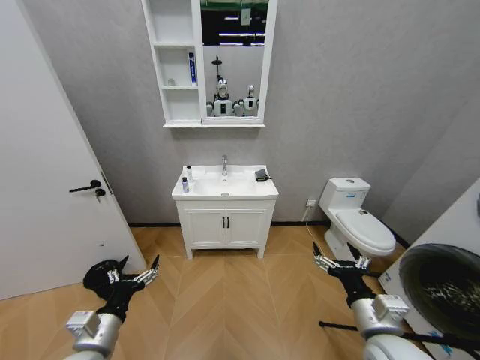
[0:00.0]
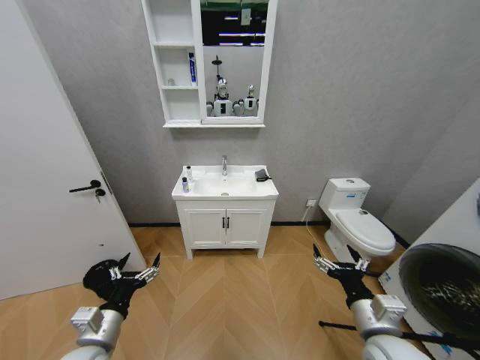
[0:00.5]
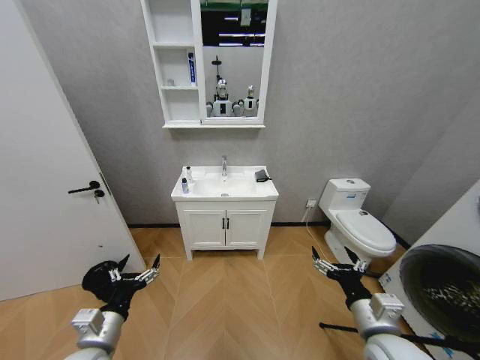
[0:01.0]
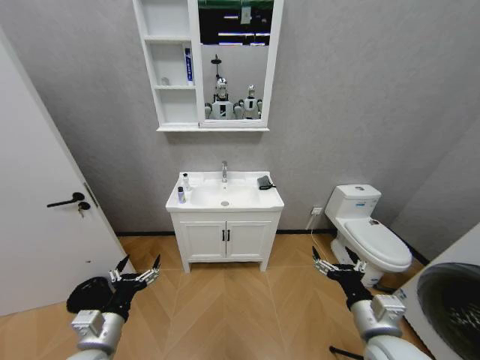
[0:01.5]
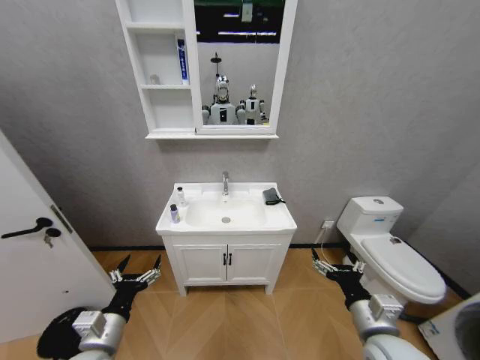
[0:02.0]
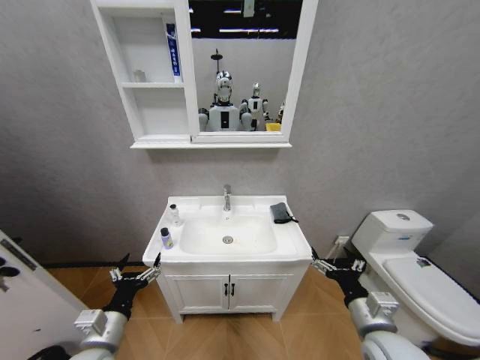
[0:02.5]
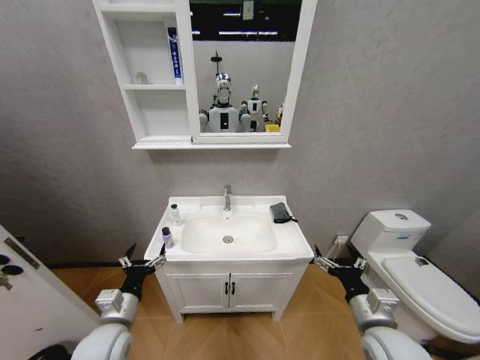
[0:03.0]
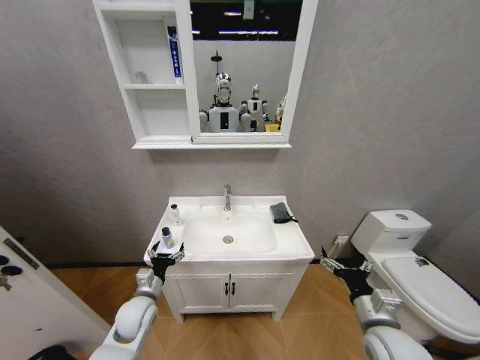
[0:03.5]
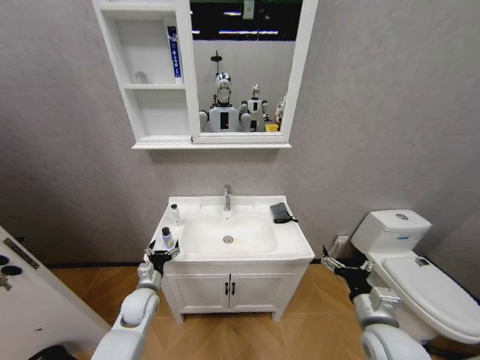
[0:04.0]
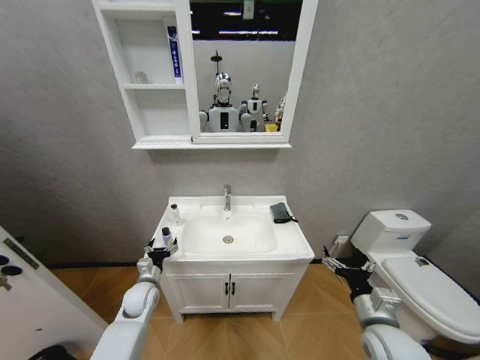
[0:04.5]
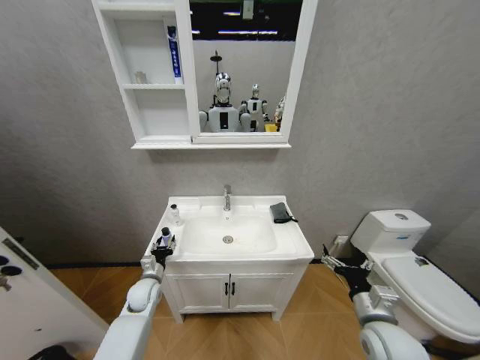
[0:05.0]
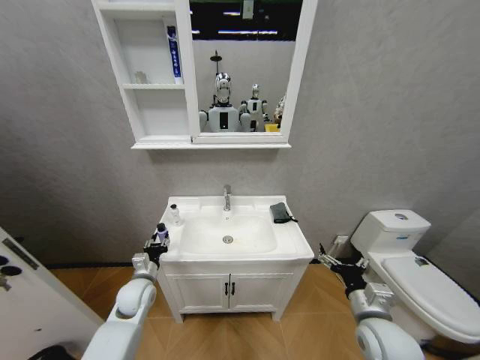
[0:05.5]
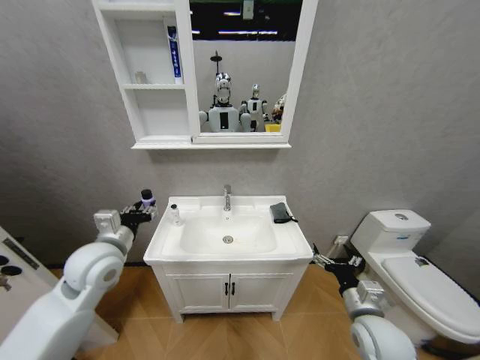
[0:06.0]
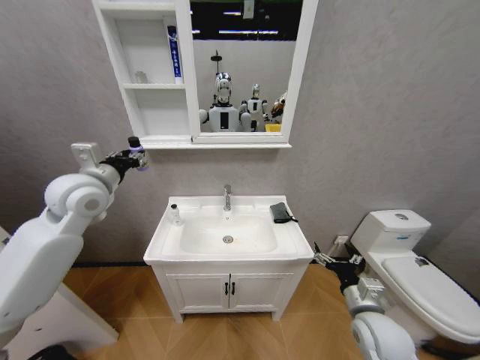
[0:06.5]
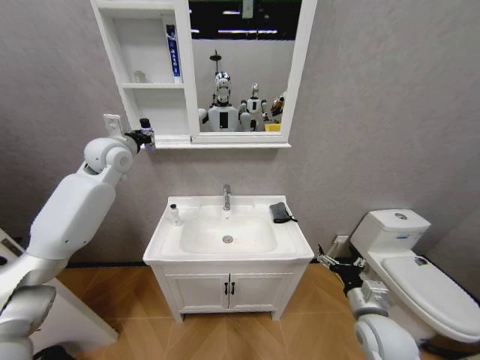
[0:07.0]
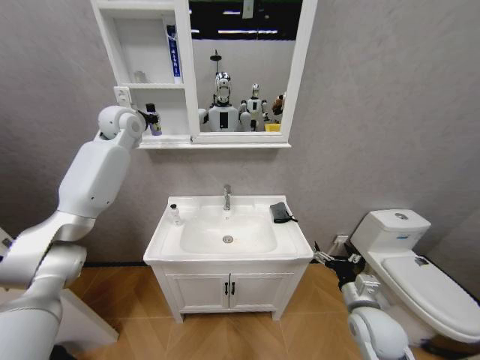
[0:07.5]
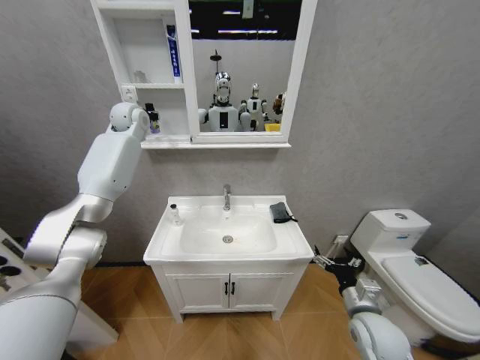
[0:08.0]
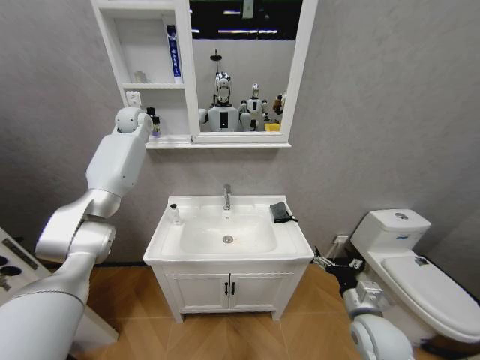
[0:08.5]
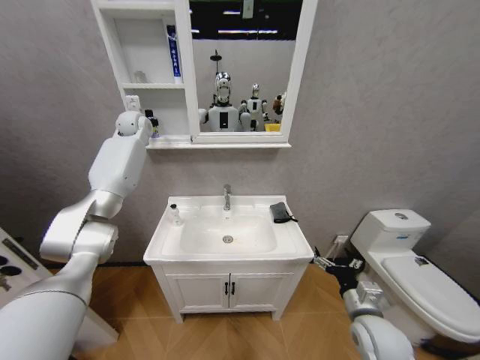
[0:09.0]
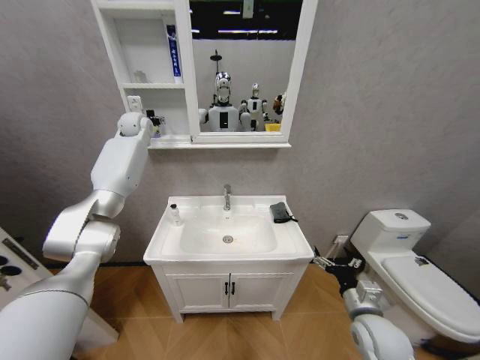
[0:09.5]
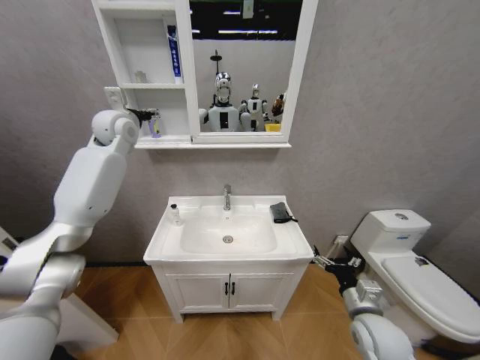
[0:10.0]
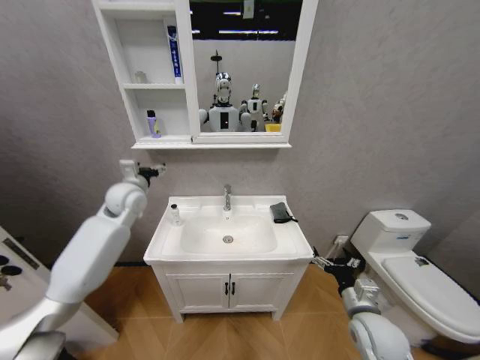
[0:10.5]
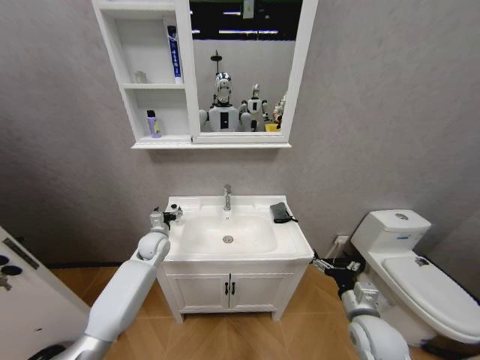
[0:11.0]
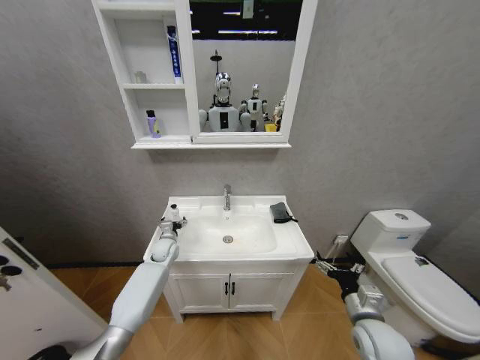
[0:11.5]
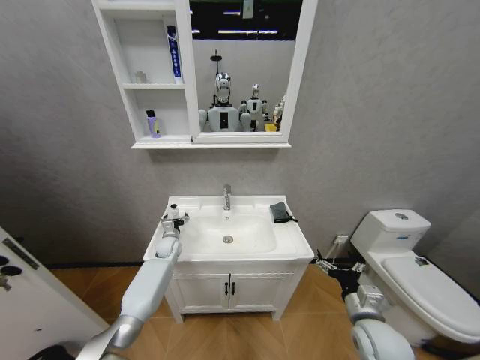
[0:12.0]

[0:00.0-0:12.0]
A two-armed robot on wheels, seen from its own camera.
Task of the whole recording: Move facial cleanser and shampoo from washbasin to cabinet, then wipe washbasin with towel.
0:02.0 to 0:04.0: The left gripper goes about 20 cm forward and downward.
0:04.0 to 0:06.0: The left gripper moves upward, approximately 25 cm, and closes up.
0:06.0 to 0:08.0: The left gripper moves forward and upward, roughly 40 cm.
0:08.0 to 0:10.0: The left gripper is displaced backward by some 10 cm, and opens its fingers.
0:10.0 to 0:12.0: The left gripper heads downward, covering about 40 cm.

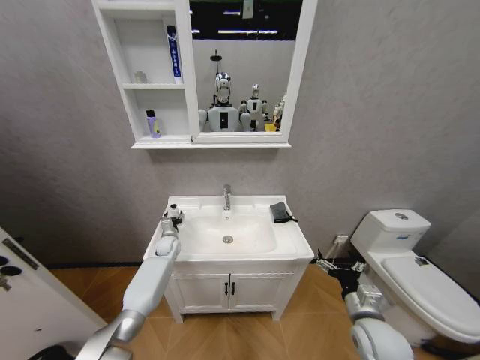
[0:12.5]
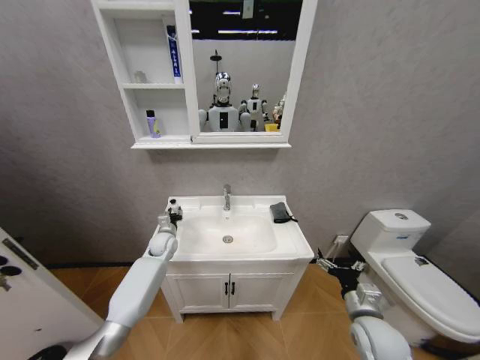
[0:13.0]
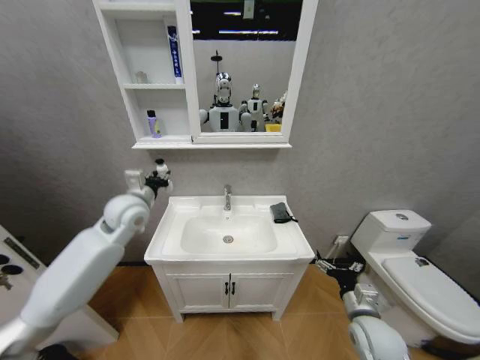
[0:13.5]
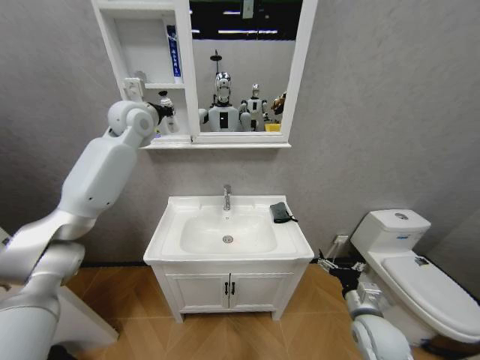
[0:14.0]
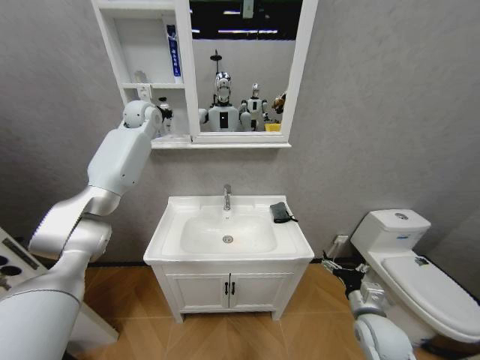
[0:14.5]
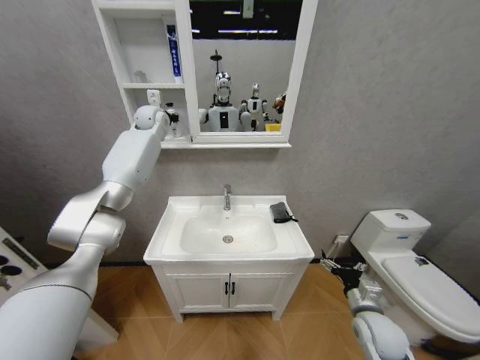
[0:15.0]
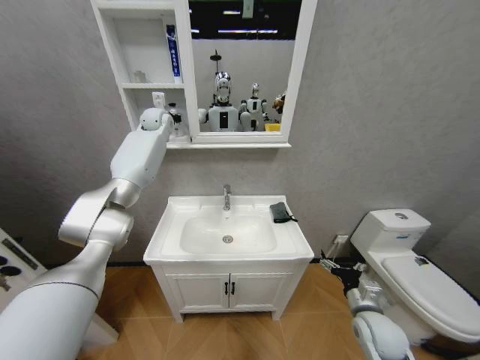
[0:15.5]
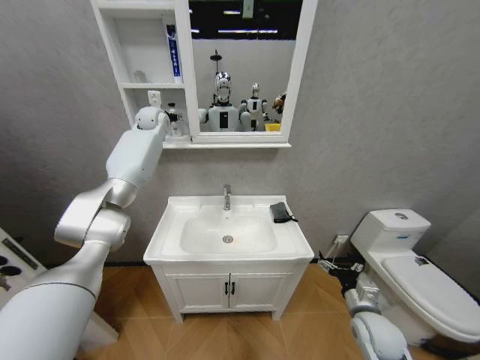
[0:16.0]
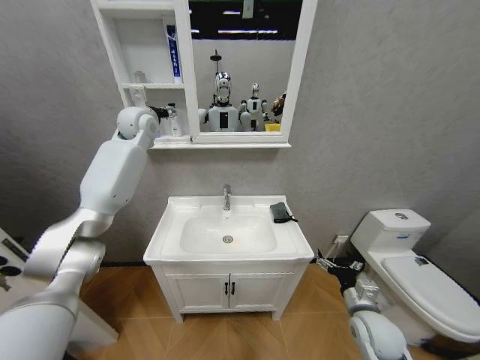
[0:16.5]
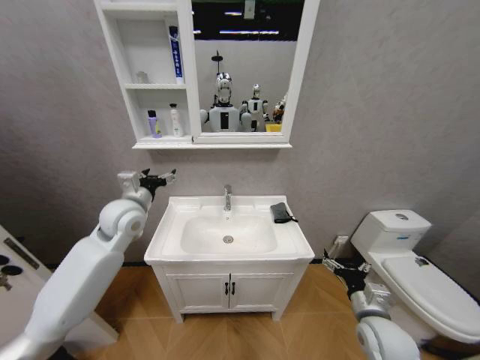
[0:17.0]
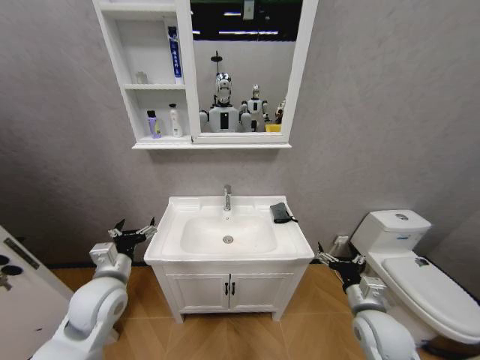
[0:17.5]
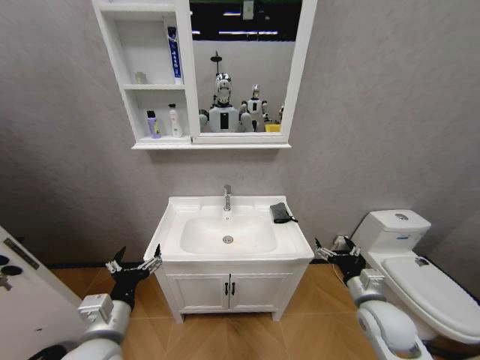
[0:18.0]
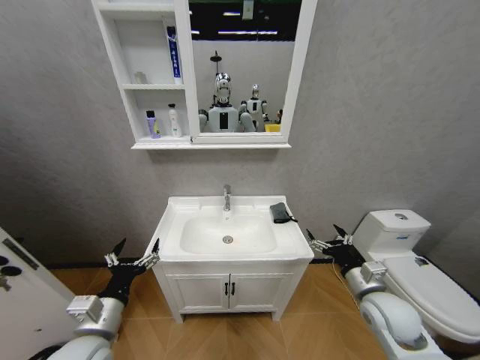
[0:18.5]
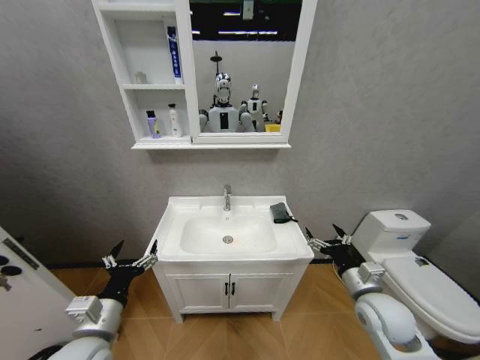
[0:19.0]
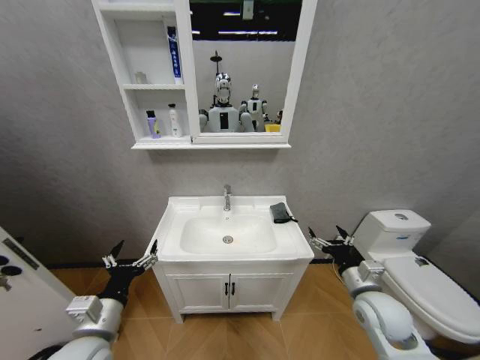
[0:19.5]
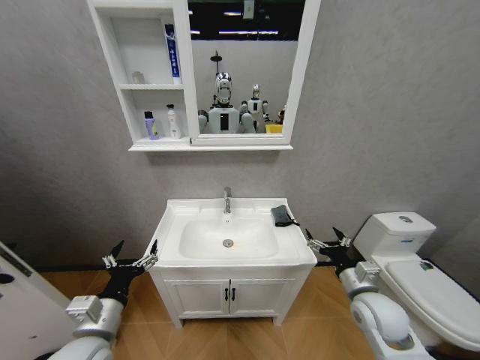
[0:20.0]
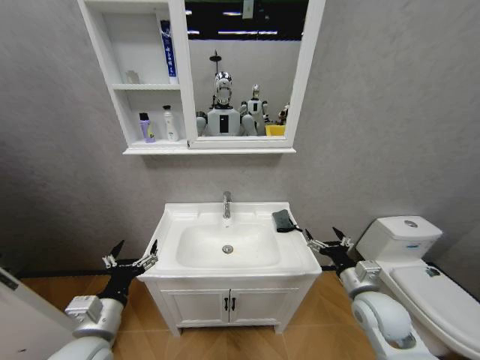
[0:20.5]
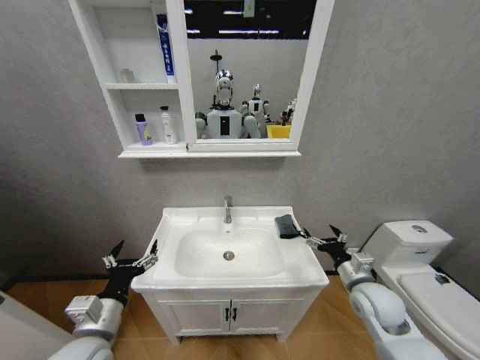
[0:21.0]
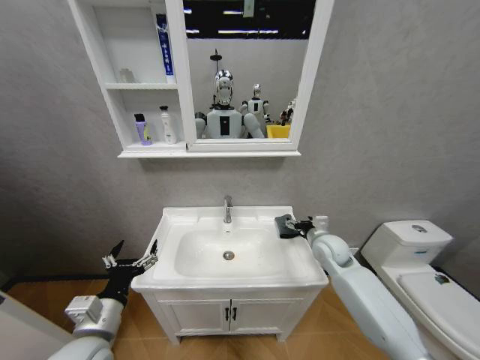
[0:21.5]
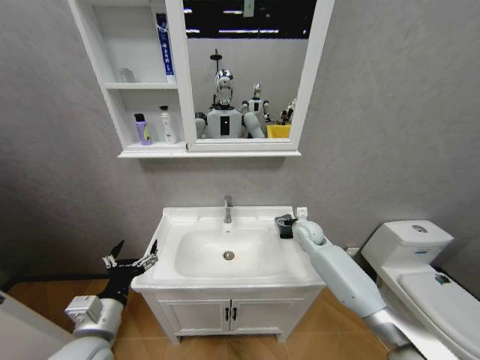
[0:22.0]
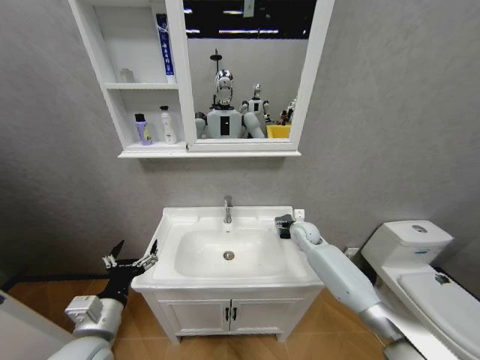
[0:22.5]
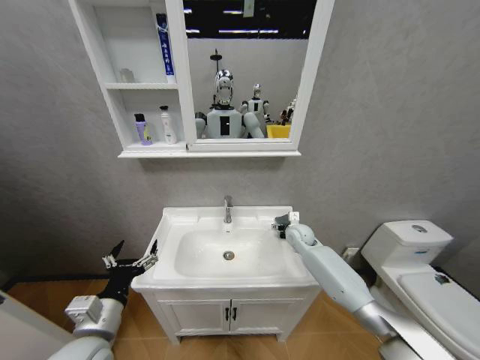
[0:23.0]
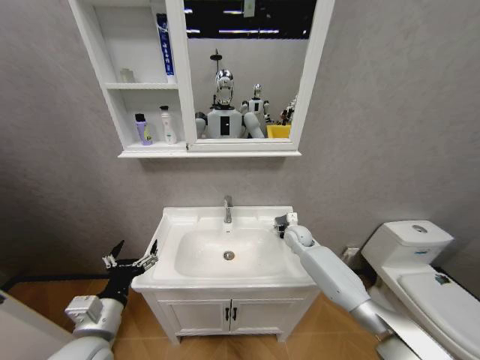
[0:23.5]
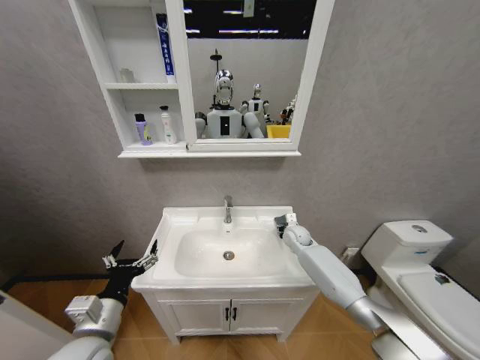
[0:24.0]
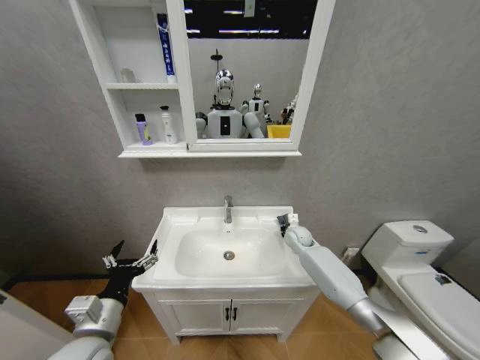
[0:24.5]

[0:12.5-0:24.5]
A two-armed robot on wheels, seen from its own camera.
Task of the whole recording: Move facial cleanser and shampoo from washbasin to cabinet, then wipe washbasin with towel.
0:12.5 to 0:14.5: The left gripper shifts approximately 50 cm upward, and closes.
0:14.5 to 0:16.5: The left gripper goes approximately 5 cm backward, and opens up.
0:16.5 to 0:18.5: The left gripper is displaced backward and downward by approximately 50 cm. The right gripper travels upward by some 5 cm.
0:18.5 to 0:20.5: The grippers move only a little.
0:20.5 to 0:22.5: The right gripper is displaced forward by roughly 25 cm.
0:22.5 to 0:24.5: The right gripper closes up.

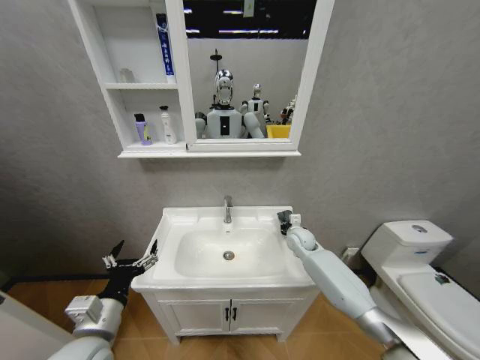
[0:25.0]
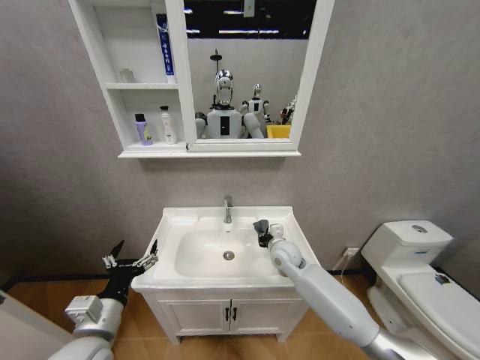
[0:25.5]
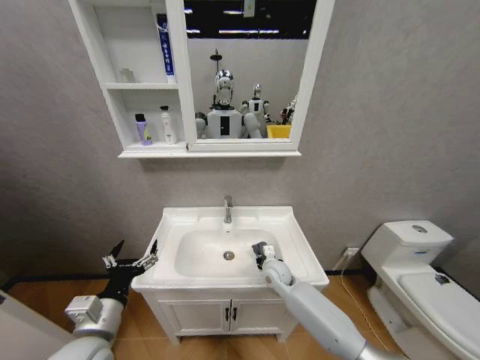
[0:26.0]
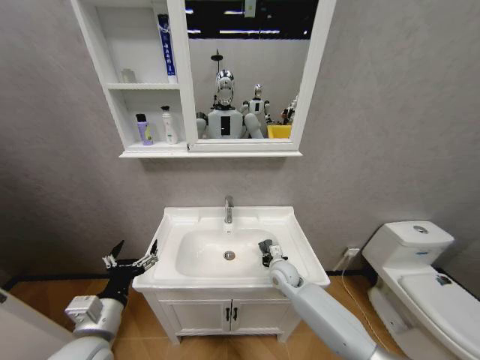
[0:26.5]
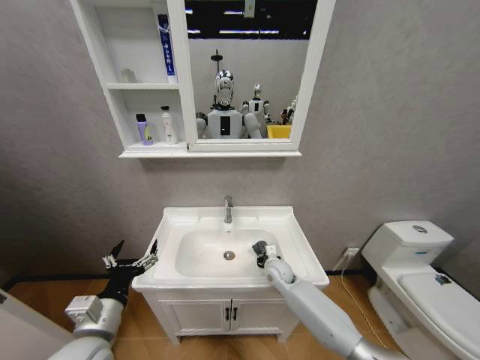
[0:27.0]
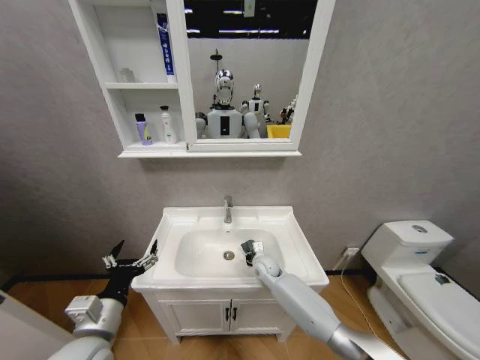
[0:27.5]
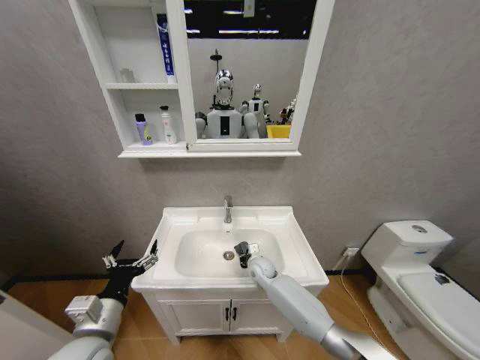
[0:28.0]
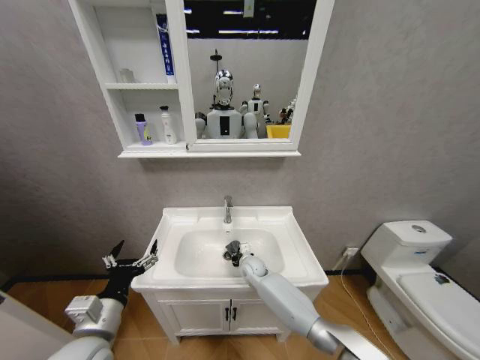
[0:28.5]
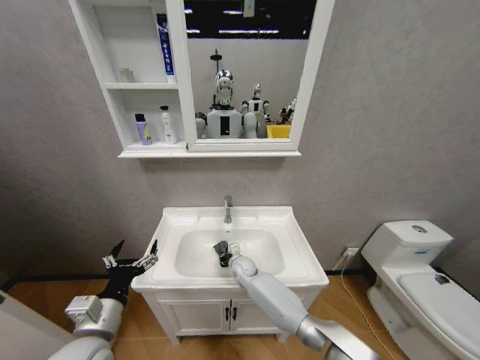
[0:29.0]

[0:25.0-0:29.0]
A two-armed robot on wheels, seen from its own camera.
Task of the whole recording: Move facial cleanser and shampoo from washbasin to cabinet, then wipe washbasin with towel.
0:25.0 to 0:27.0: The right gripper is displaced to the left, downward and backward by about 15 cm.
0:27.0 to 0:29.0: The right gripper goes approximately 10 cm to the left.
